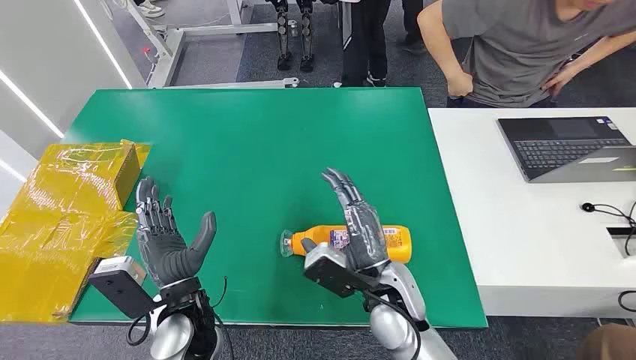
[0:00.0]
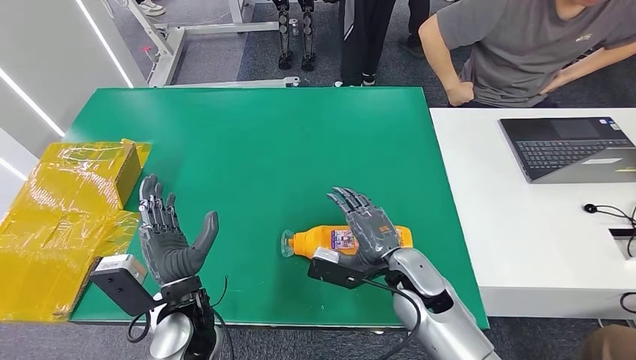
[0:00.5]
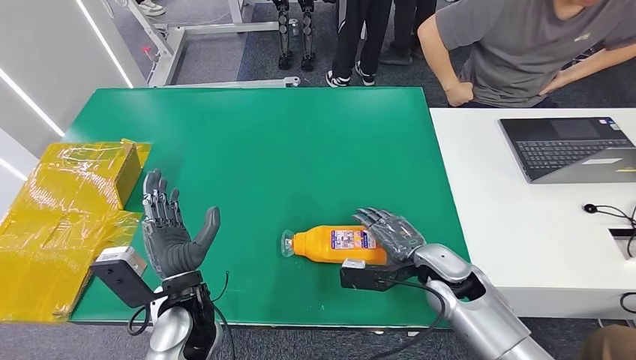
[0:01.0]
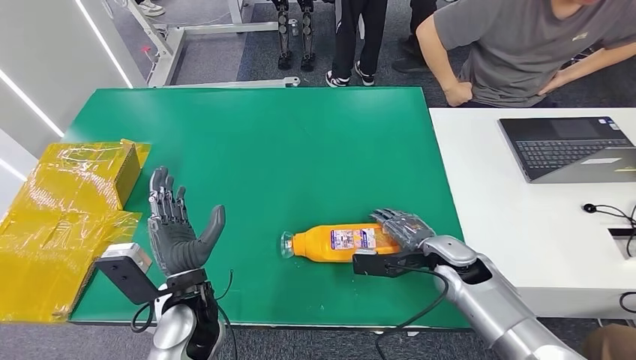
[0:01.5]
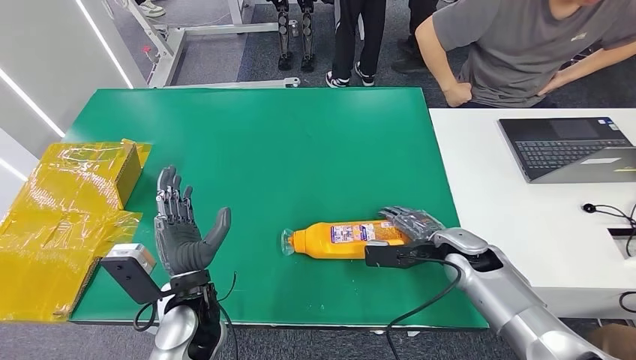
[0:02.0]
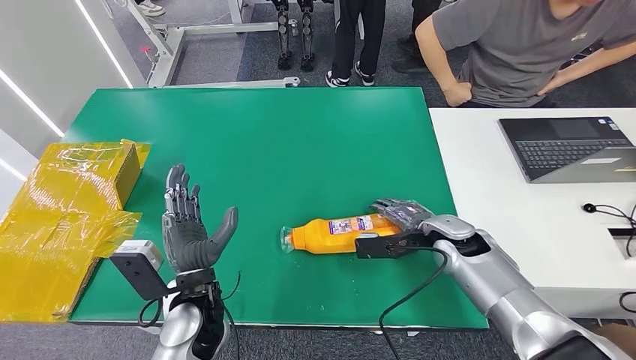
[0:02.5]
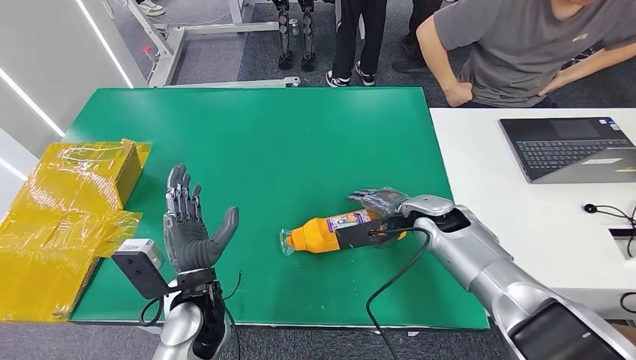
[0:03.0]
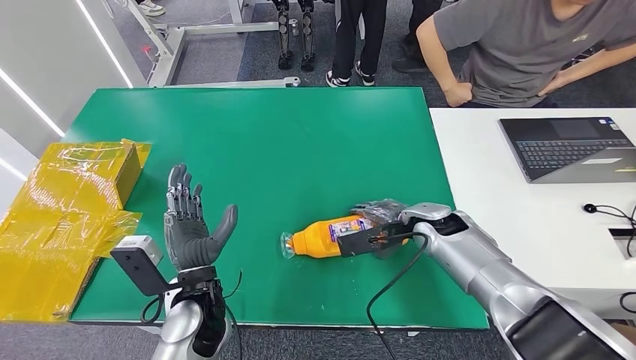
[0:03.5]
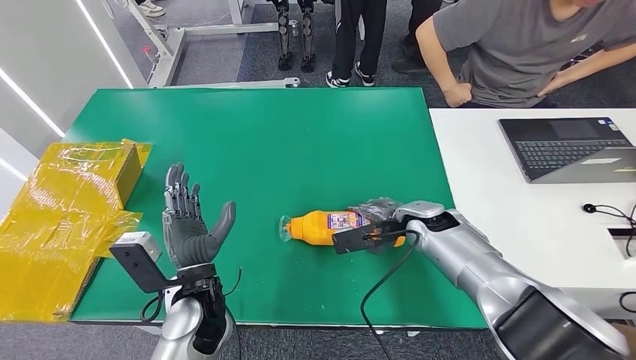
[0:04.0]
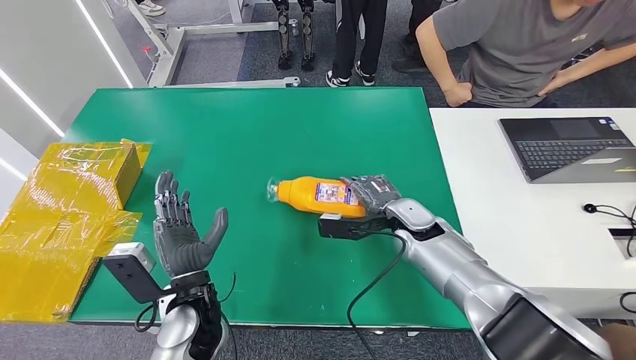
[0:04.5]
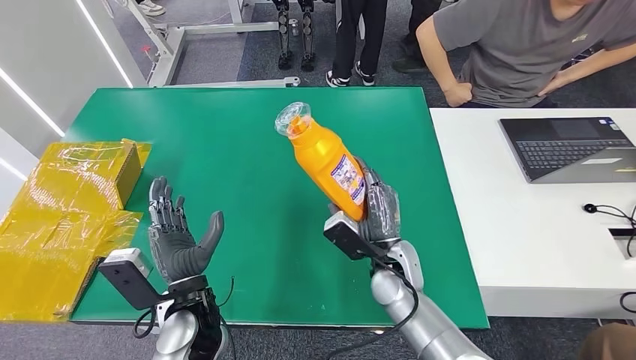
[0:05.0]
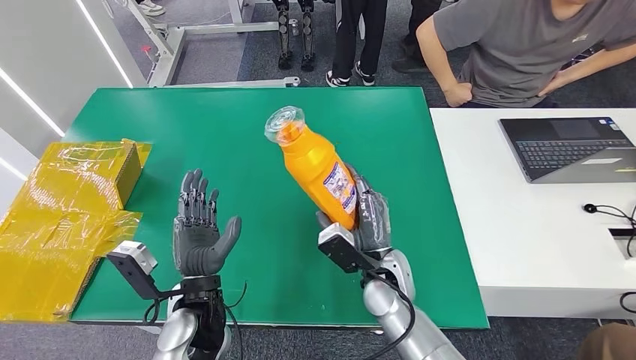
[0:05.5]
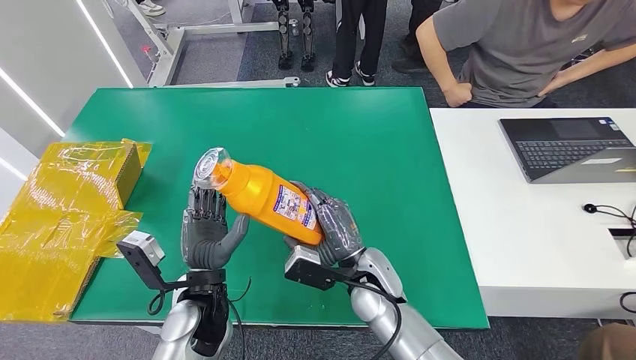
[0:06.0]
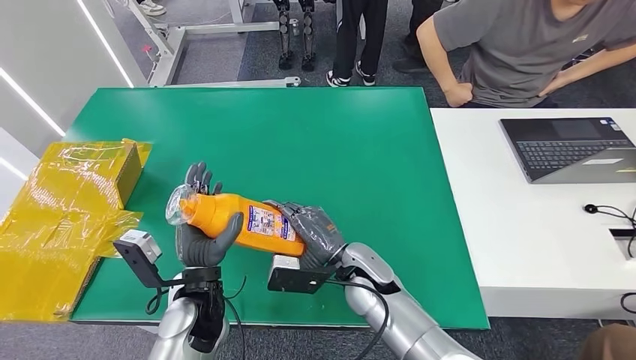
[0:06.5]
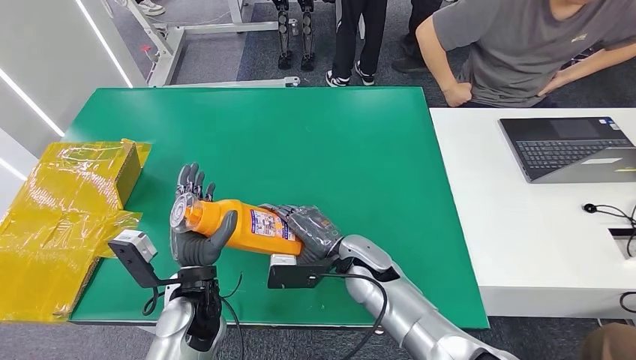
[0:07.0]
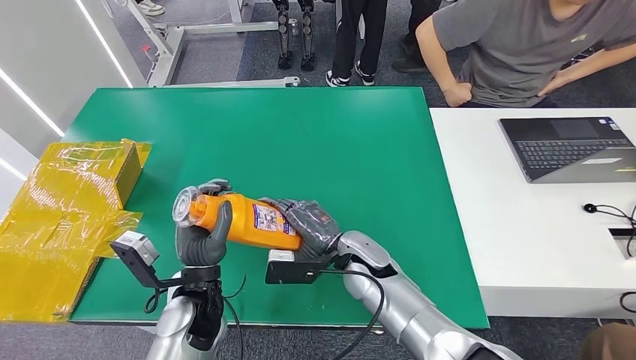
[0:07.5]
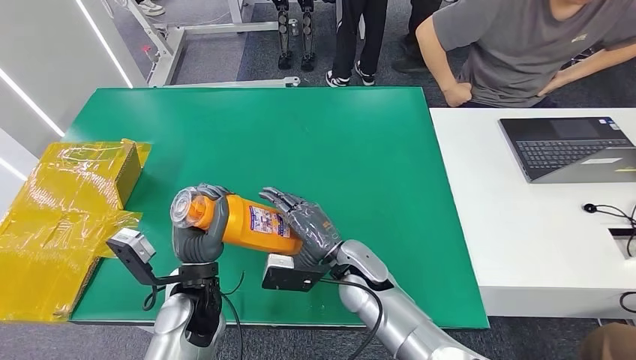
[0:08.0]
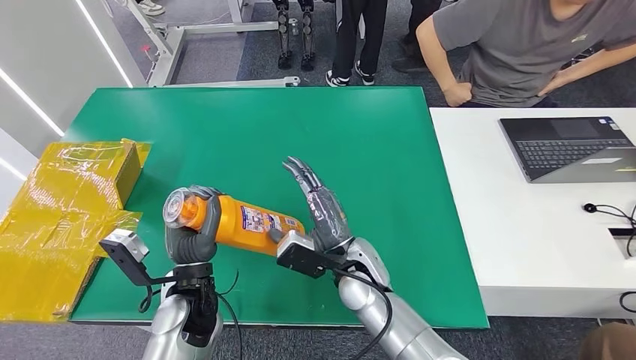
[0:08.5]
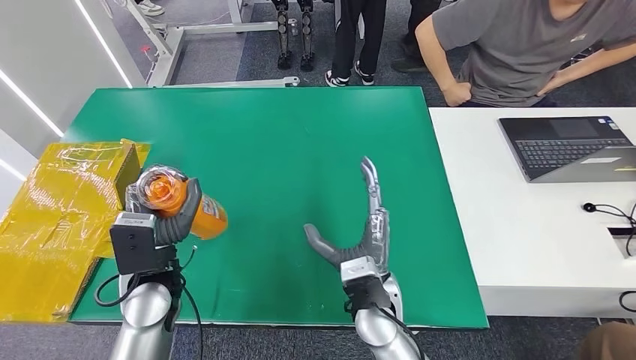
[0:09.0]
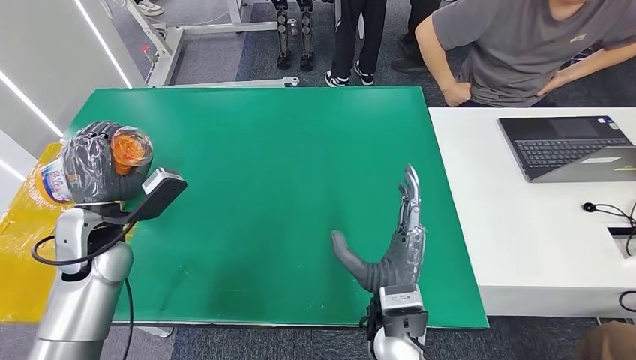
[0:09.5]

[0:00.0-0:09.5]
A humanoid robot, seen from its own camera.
Step, 0:00.0 to 0:05.5: Pick up the bottle from the table.
0:02.0 to 0:04.0: The right hand heads to the left and forward, covering some 10 cm.
0:04.0 to 0:05.5: The right hand moves backward and to the left, roughly 15 cm.
0:07.5 to 0:09.5: The left hand shifts approximately 20 cm to the left, upward and forward. Meanwhile the right hand travels backward by about 10 cm.

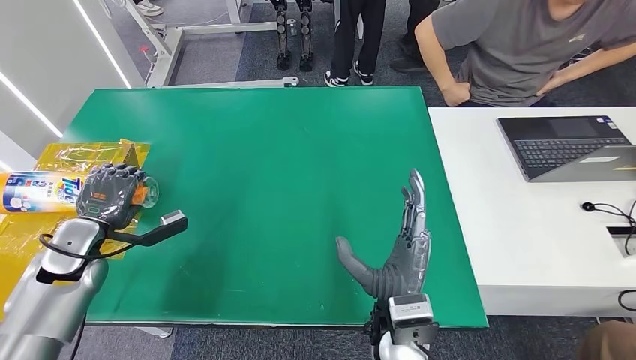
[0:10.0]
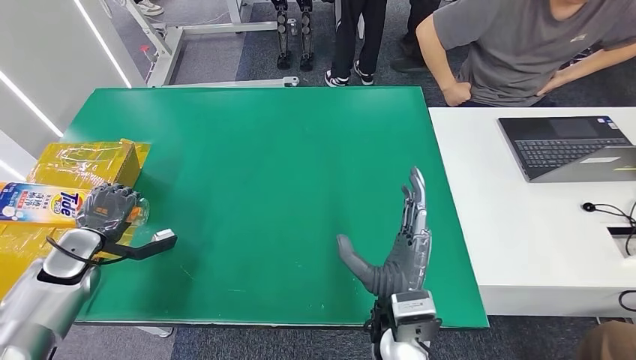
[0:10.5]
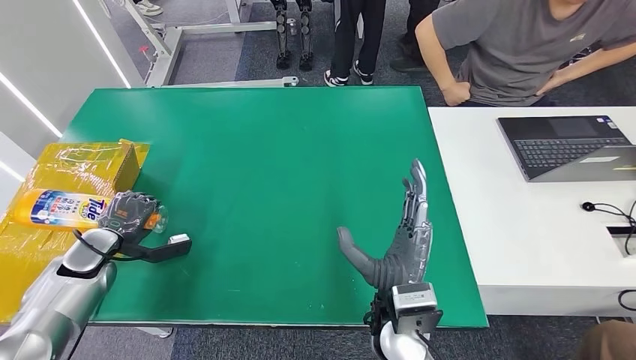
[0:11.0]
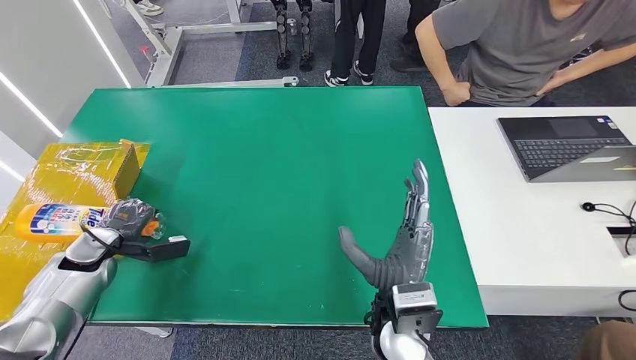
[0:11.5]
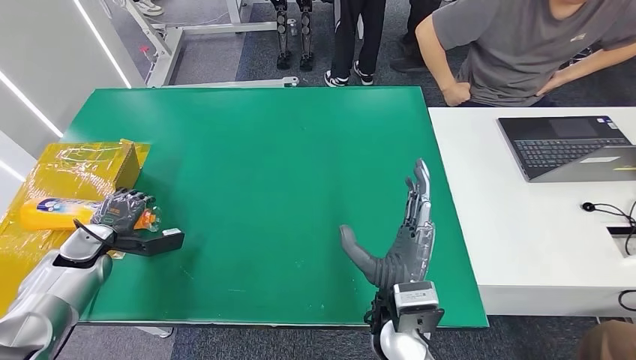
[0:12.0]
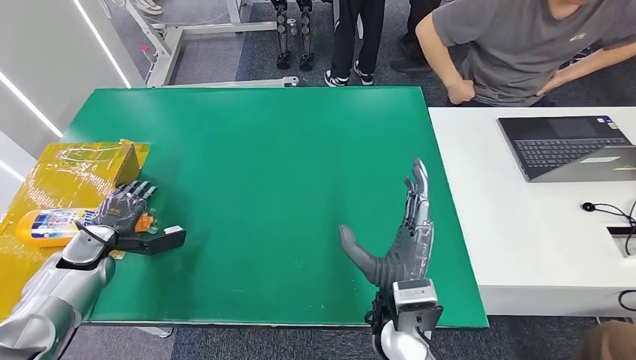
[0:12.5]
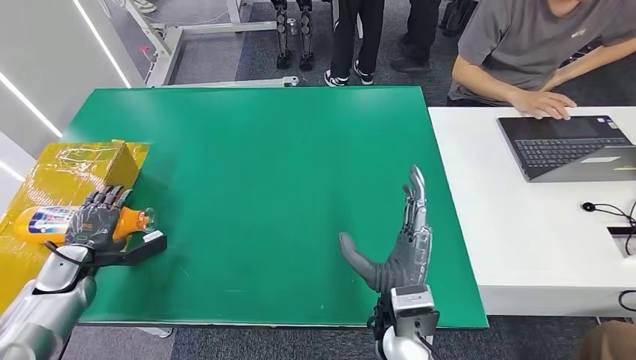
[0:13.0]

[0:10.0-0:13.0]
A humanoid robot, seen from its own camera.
Step, 0:10.0 to 0:12.5: Turn the bottle to the front side.
0:10.0 to 0:11.5: The left hand moves downward, about 5 cm.
0:11.5 to 0:13.0: The left hand moves approximately 5 cm.

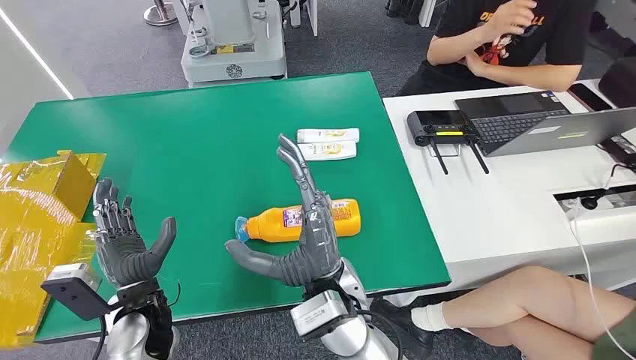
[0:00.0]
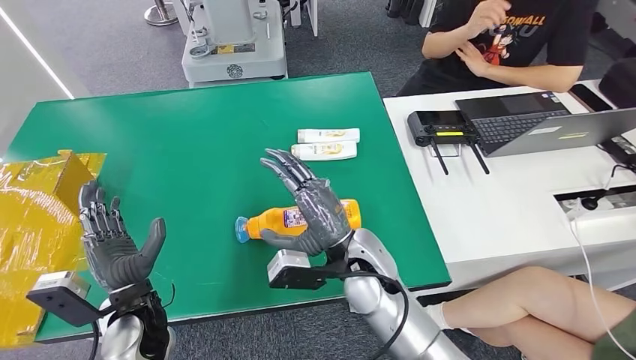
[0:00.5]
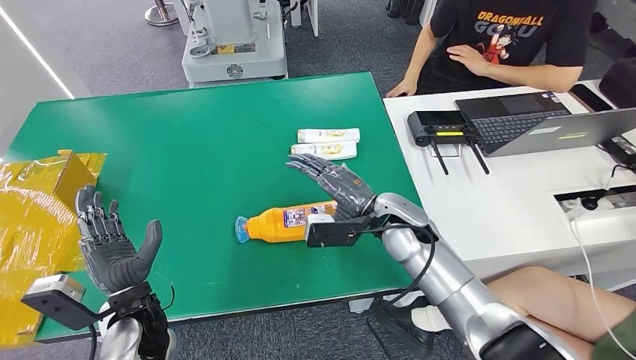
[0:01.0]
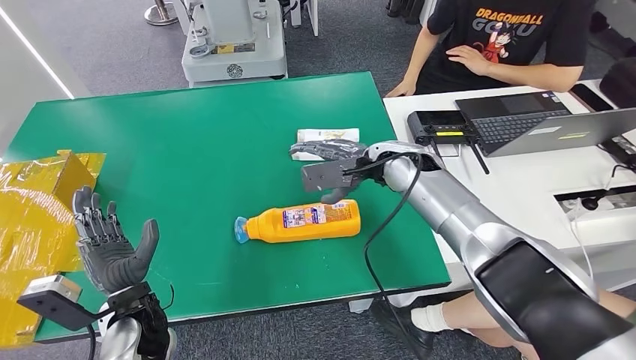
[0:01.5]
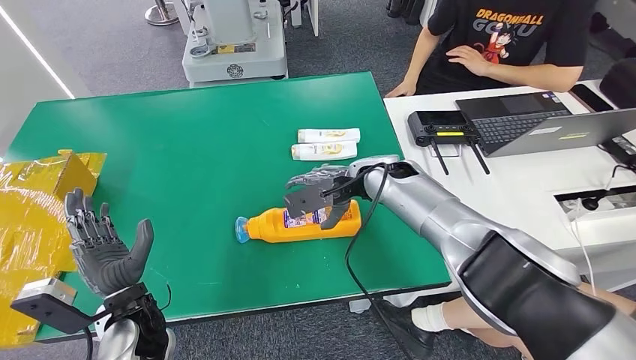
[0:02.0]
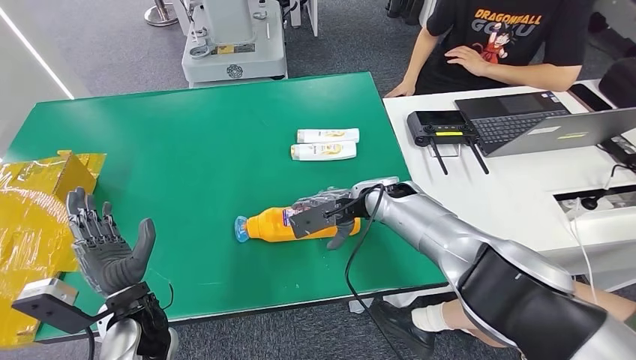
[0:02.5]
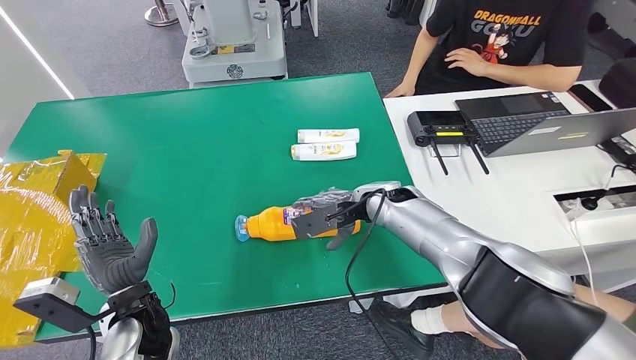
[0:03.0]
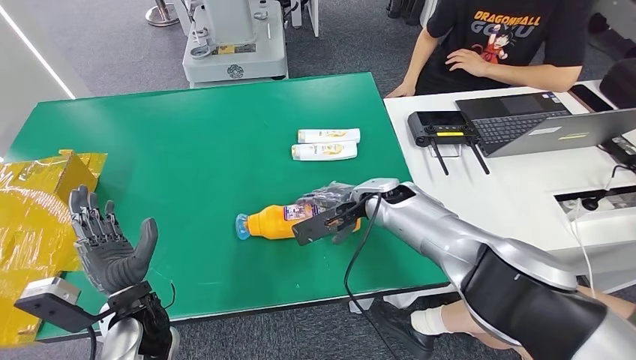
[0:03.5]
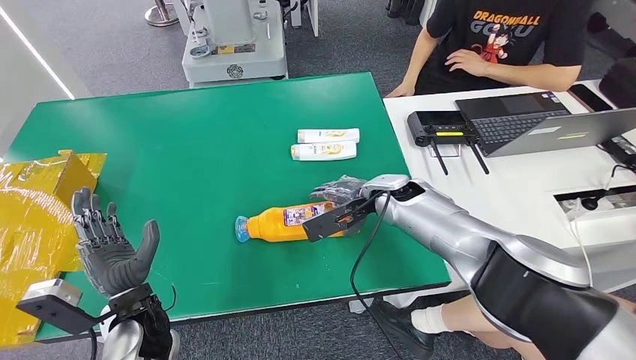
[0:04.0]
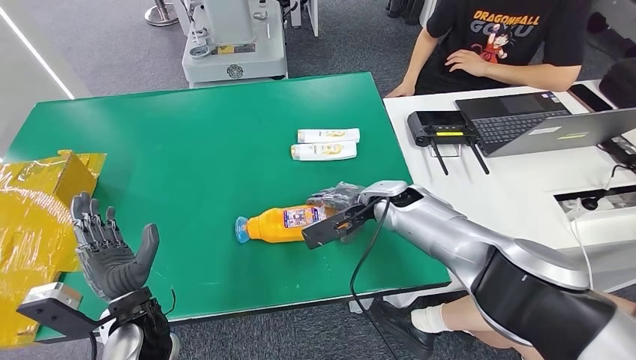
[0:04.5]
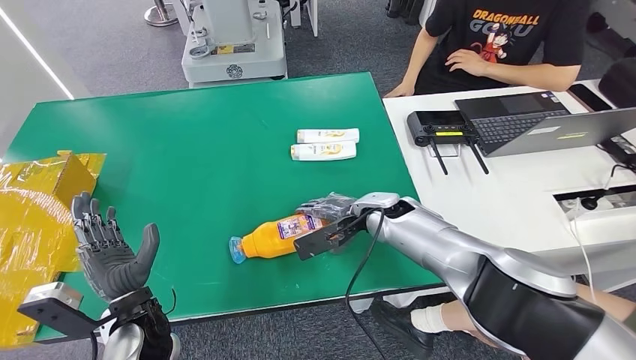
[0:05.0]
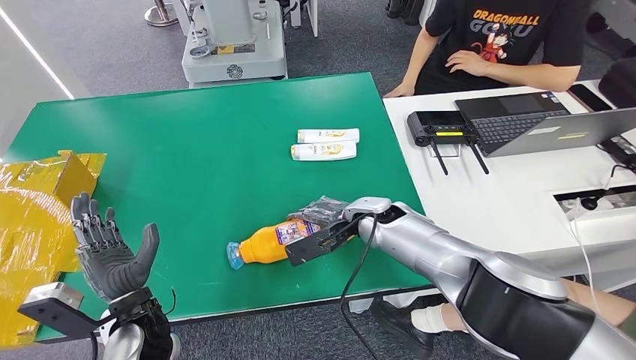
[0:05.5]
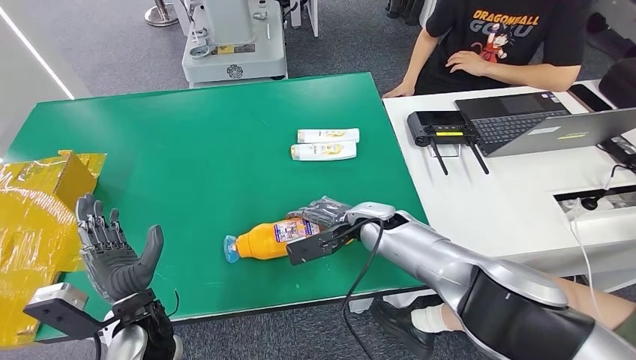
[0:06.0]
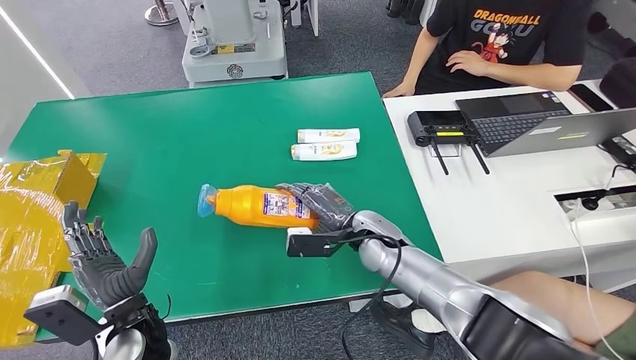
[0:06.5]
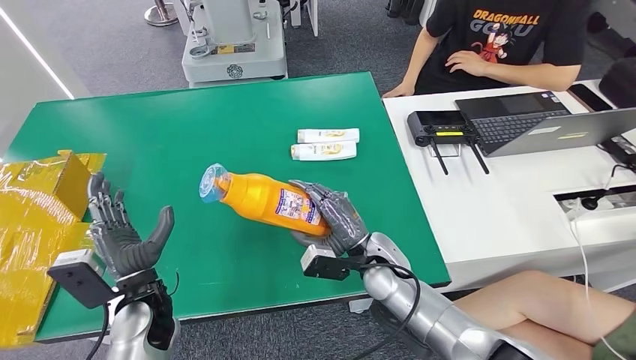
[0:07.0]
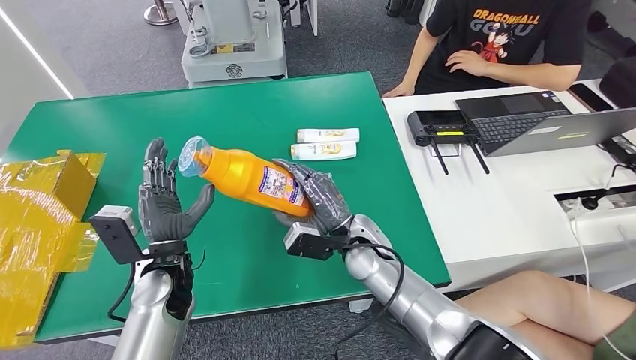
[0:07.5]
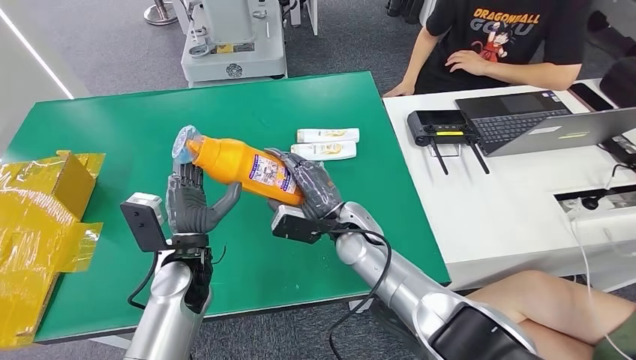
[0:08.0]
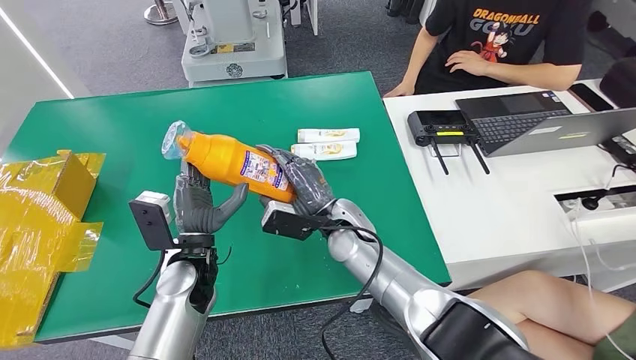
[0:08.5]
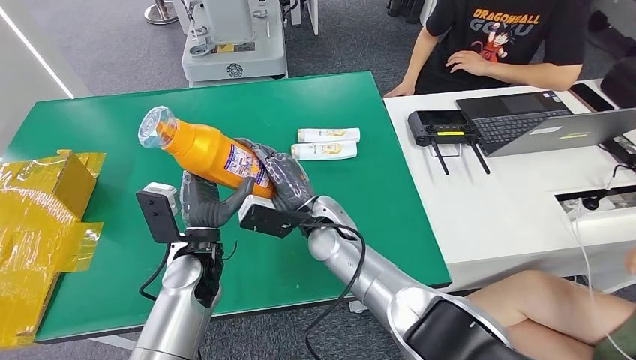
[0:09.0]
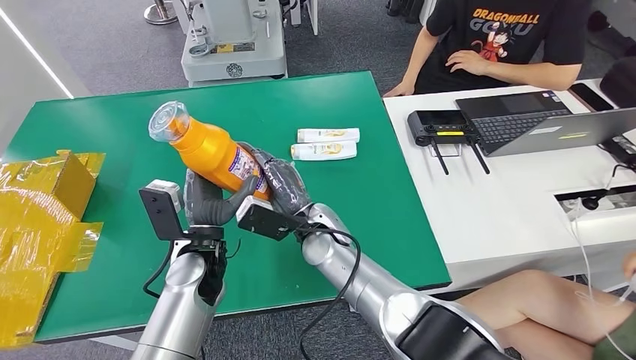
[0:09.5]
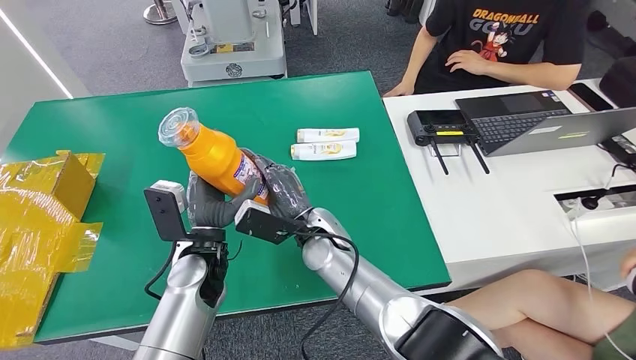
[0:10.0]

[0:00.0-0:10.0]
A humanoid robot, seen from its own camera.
Step, 0:00.0 to 0:07.0: Pick up the bottle from the table.
0:02.0 to 0:04.0: The right hand changes place by roughly 5 cm.
0:04.0 to 0:06.0: The right hand changes place by some 5 cm.
0:08.0 to 0:10.0: The right hand travels to the left by some 5 cm.
